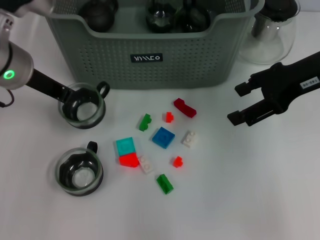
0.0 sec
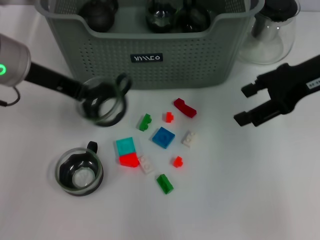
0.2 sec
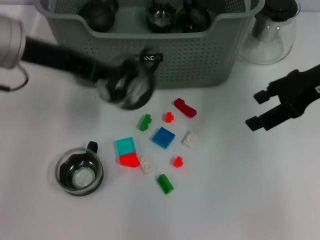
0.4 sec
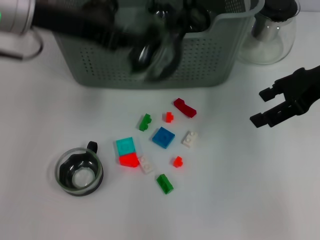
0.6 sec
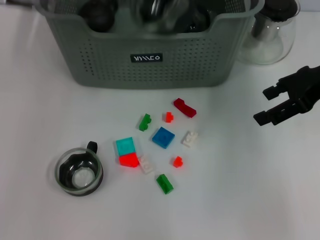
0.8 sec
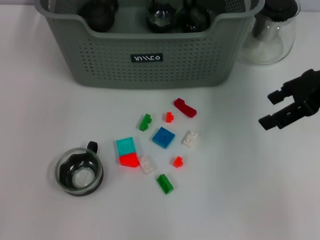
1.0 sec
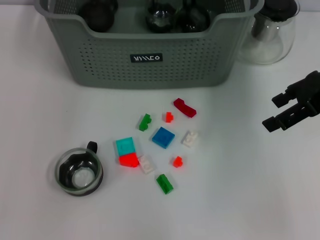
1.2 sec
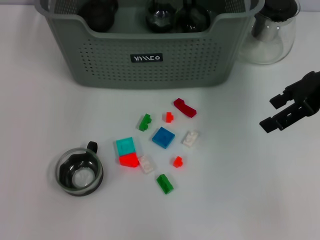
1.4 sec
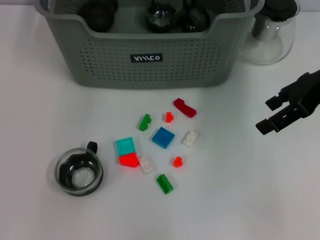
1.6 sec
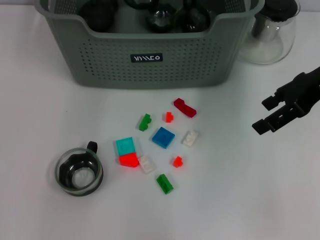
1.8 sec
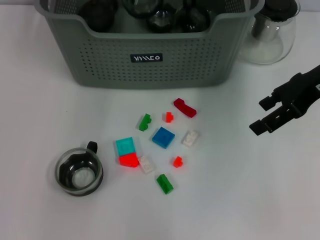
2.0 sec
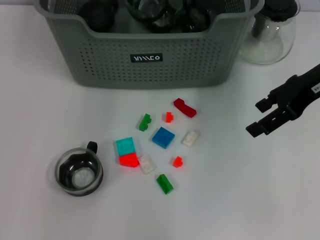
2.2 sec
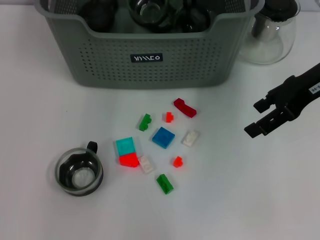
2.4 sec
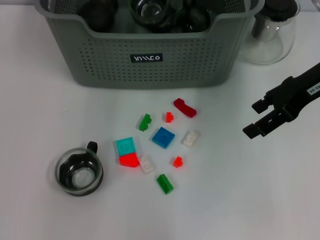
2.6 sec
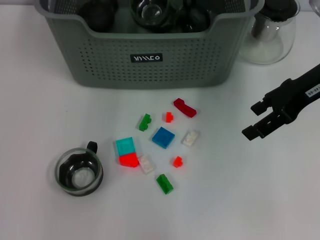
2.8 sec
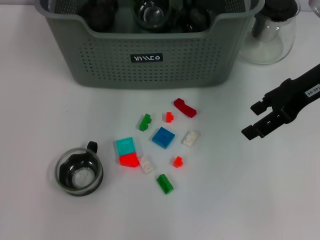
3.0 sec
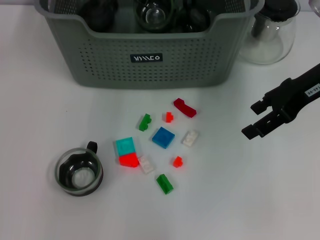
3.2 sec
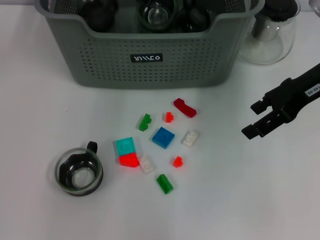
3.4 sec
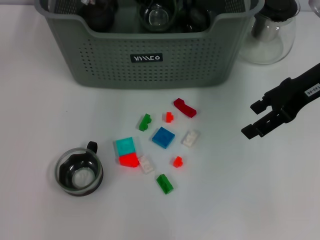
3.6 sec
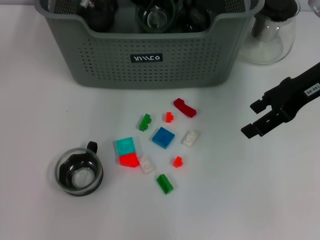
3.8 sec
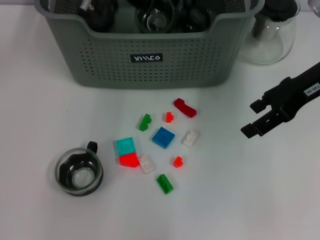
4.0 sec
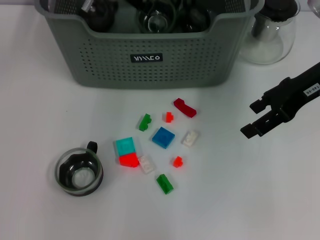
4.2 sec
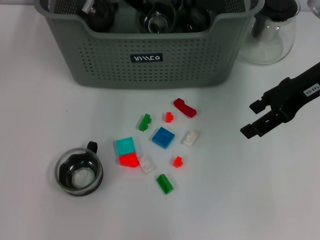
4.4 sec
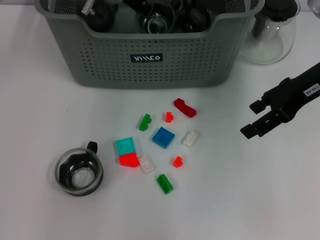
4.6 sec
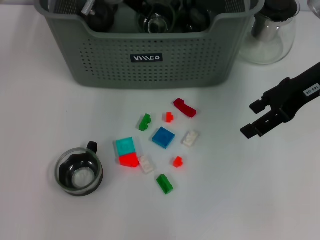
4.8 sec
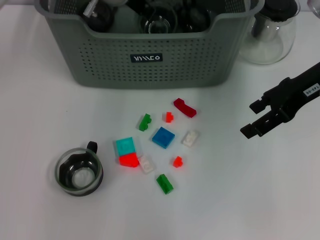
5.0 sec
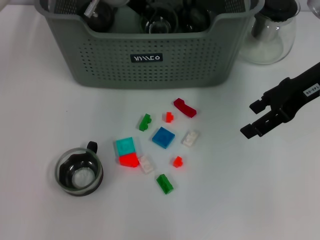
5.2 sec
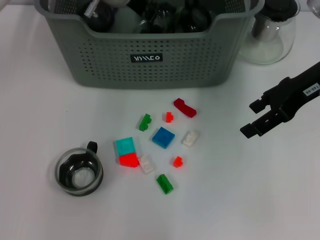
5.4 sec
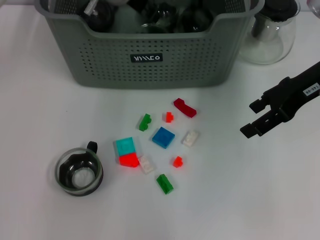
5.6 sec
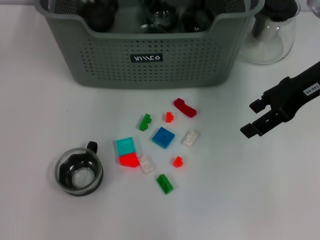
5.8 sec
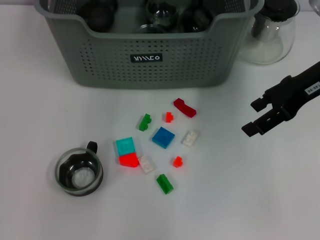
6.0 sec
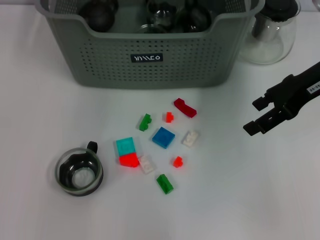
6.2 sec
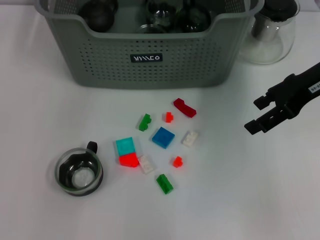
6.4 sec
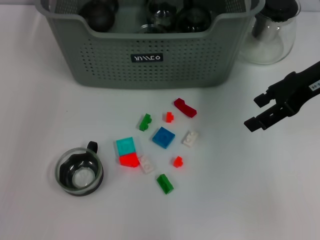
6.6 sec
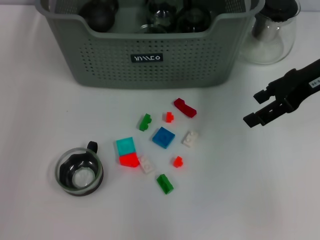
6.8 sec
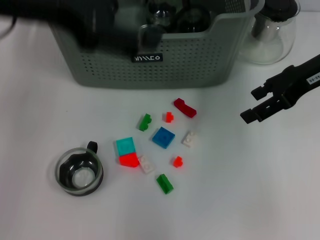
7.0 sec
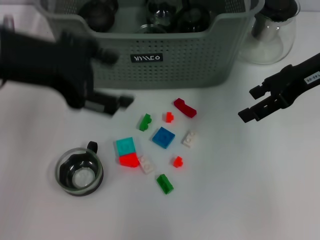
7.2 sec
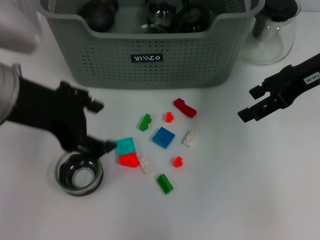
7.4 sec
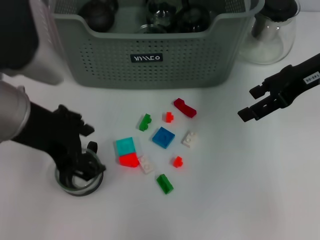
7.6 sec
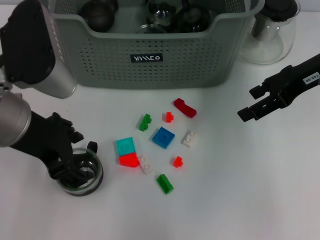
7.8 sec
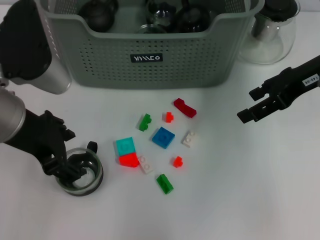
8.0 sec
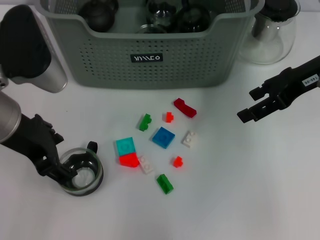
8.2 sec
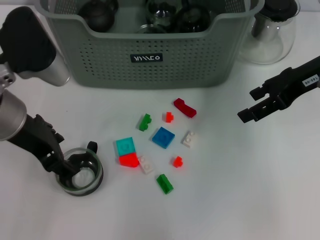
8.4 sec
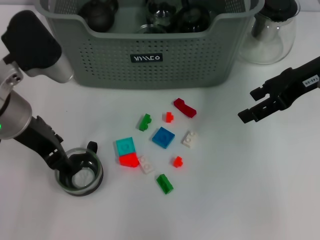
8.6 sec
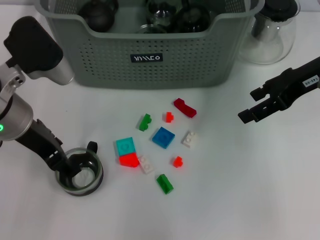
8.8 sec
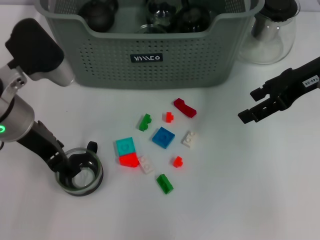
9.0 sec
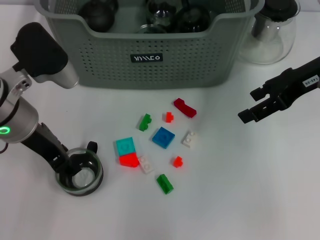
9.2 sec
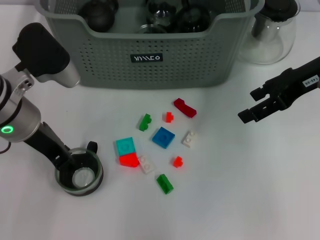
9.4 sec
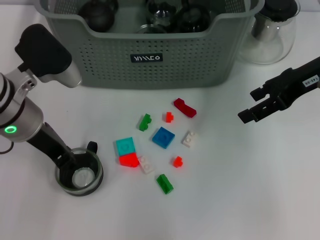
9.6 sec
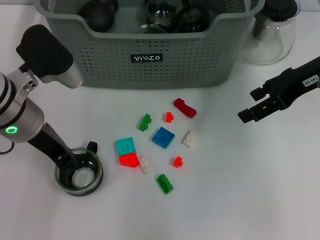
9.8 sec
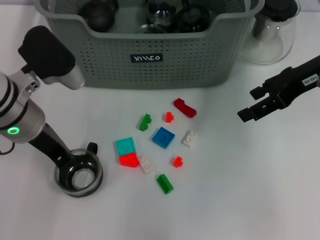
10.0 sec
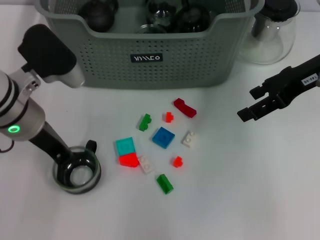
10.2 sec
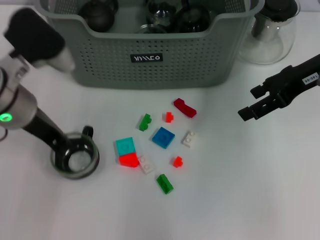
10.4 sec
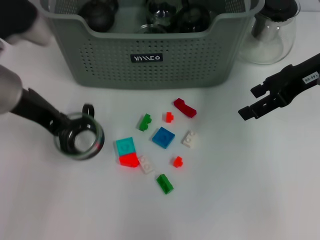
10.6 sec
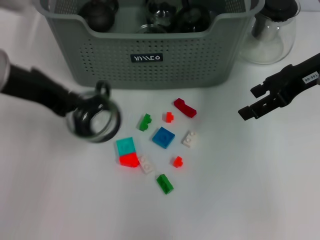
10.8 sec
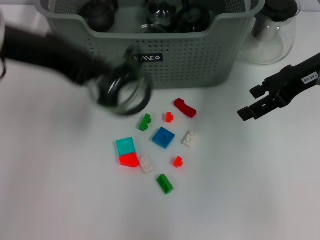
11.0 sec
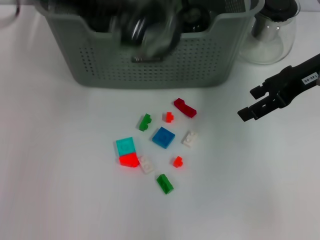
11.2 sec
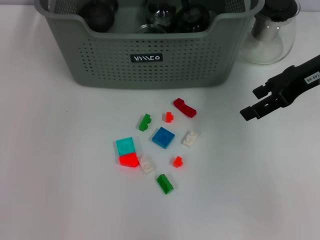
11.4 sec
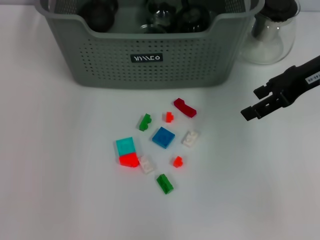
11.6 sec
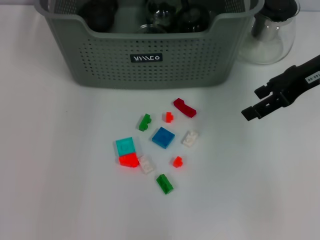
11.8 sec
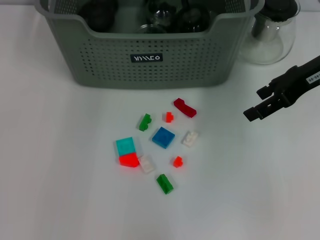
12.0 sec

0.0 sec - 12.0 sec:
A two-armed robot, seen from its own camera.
Task of the whole recording: pick up the teacup on the table and place it into the storage bin, pick up the block on the table and place it into the storage bin.
Step, 0.0 sec - 5.8 sec: Place the cup in the storage box with left gripper.
Step, 6.0 sec - 10.0 sec: Grasp the cup with left gripper.
0.0 sec - 1.6 sec: The left gripper travels forward and upward by about 20 cm.
1.6 sec - 3.0 sec: The left gripper goes roughly 10 cm downward and to the right.
3.0 sec - 4.4 sec: There are only small adjustments of the grippers.
4.4 sec - 6.0 sec: The left gripper travels upward by roughly 5 cm, and opens up.
6.0 sec - 7.6 sec: The left gripper goes approximately 20 cm backward.
7.6 sec - 9.0 sec: The left gripper is displaced downward by about 5 cm.
9.0 sec - 10.4 sec: The left gripper closes its fingers.
10.4 sec - 12.0 sec: The left gripper goes approximately 20 cm forward and upward.

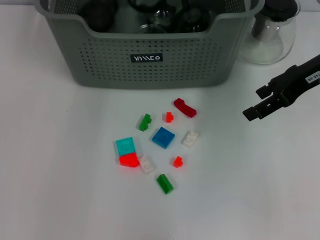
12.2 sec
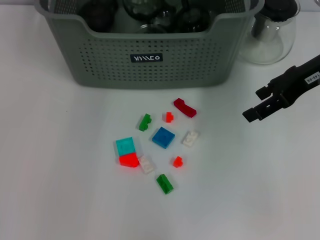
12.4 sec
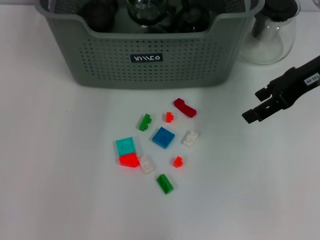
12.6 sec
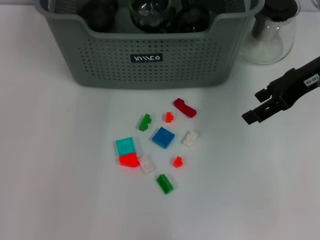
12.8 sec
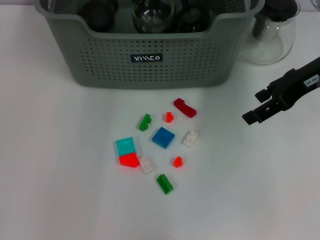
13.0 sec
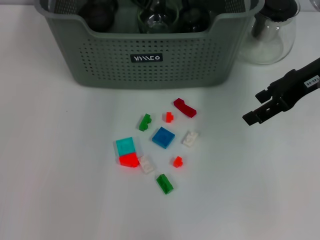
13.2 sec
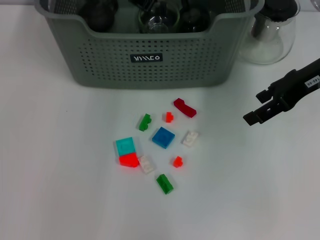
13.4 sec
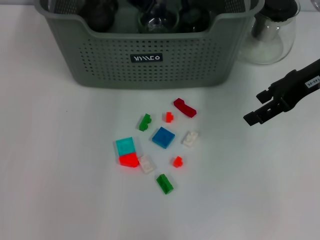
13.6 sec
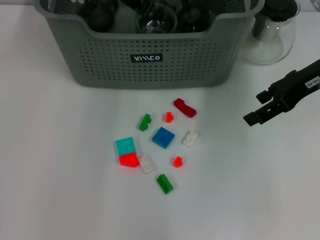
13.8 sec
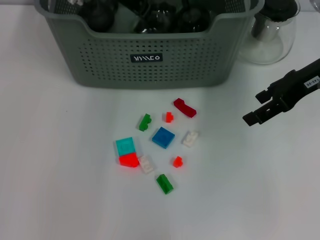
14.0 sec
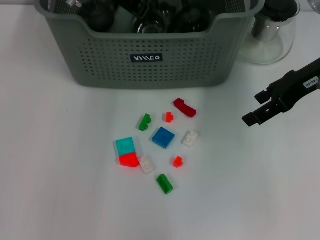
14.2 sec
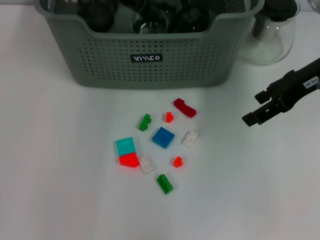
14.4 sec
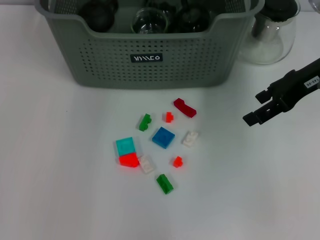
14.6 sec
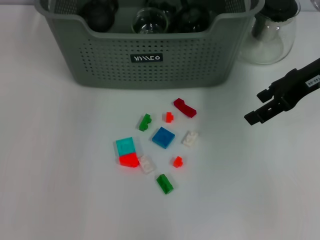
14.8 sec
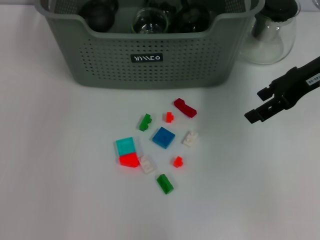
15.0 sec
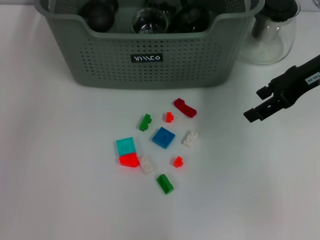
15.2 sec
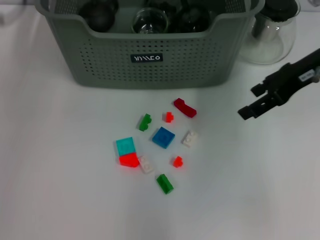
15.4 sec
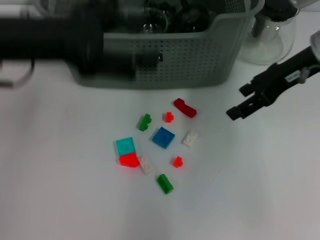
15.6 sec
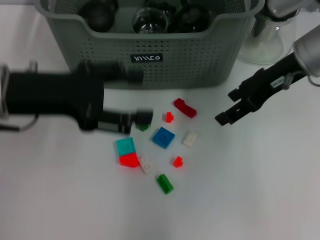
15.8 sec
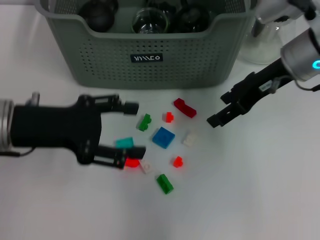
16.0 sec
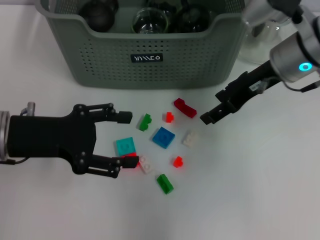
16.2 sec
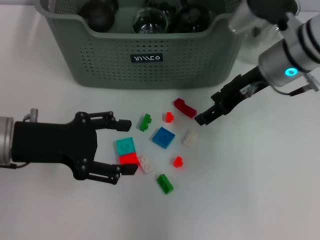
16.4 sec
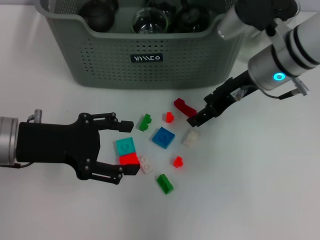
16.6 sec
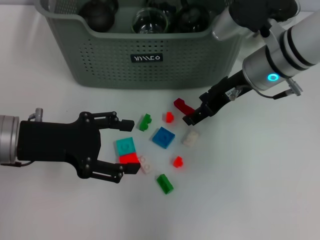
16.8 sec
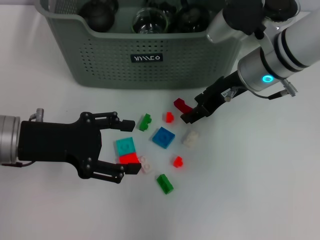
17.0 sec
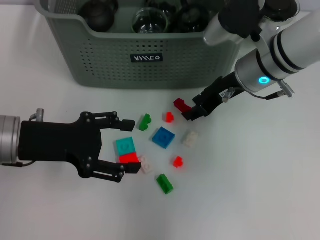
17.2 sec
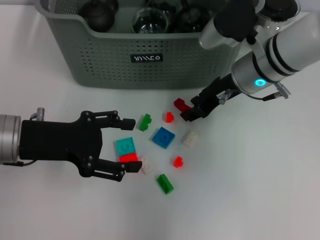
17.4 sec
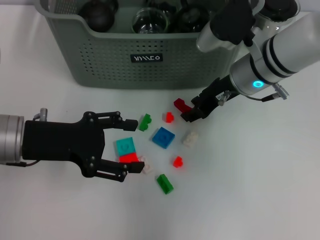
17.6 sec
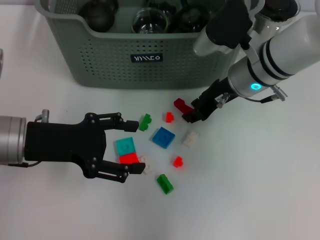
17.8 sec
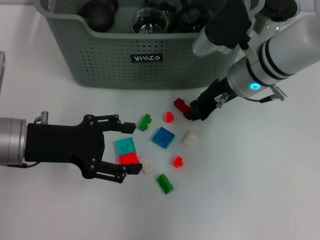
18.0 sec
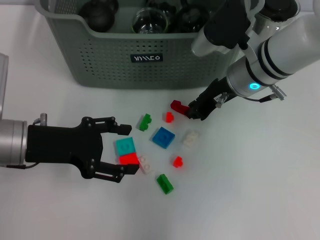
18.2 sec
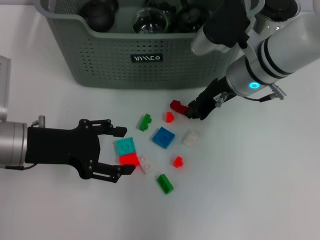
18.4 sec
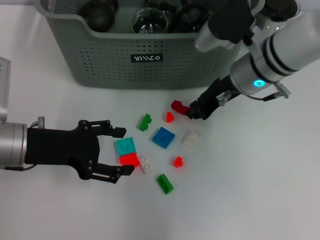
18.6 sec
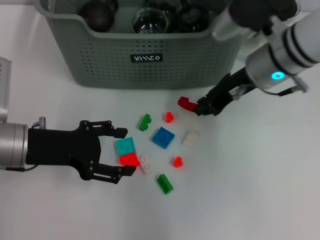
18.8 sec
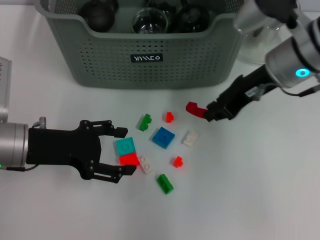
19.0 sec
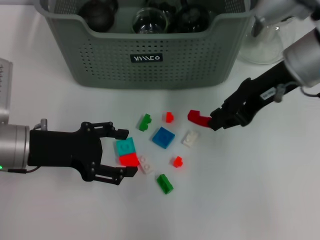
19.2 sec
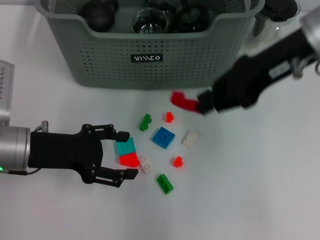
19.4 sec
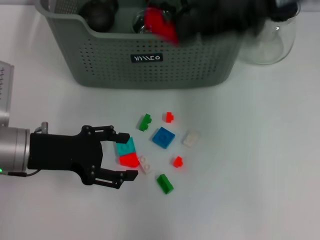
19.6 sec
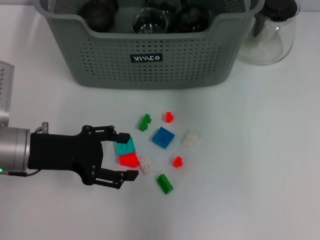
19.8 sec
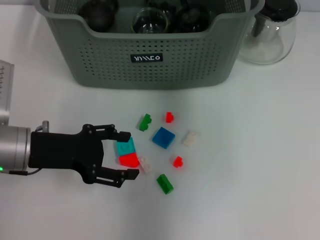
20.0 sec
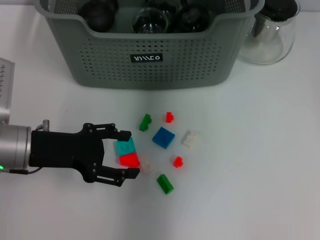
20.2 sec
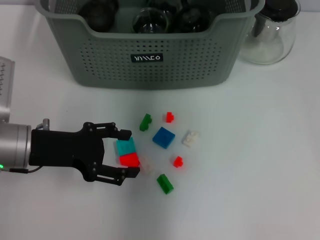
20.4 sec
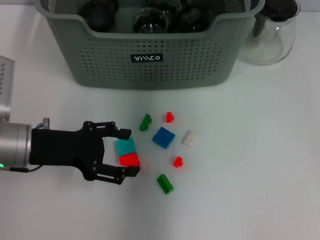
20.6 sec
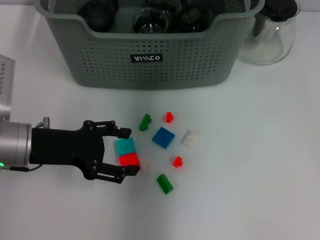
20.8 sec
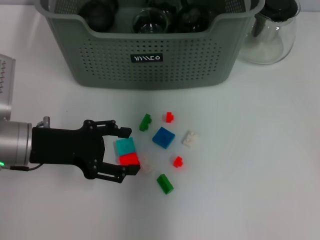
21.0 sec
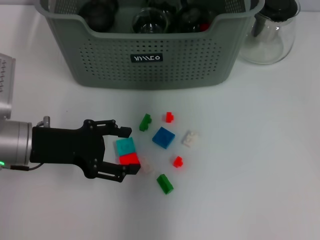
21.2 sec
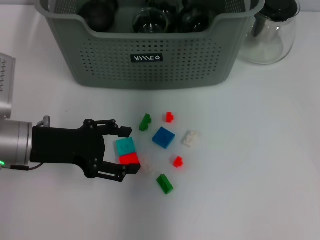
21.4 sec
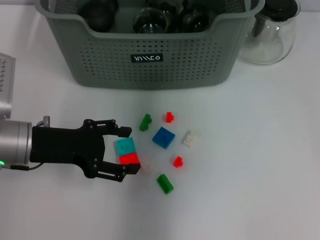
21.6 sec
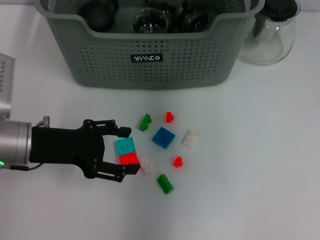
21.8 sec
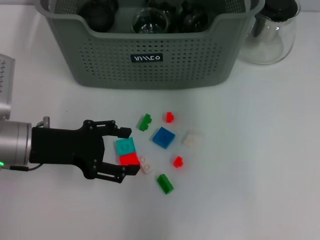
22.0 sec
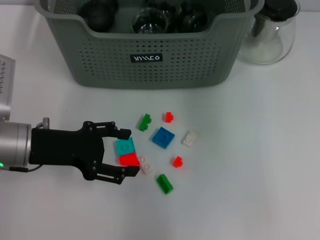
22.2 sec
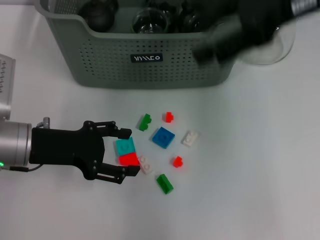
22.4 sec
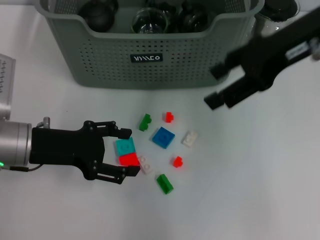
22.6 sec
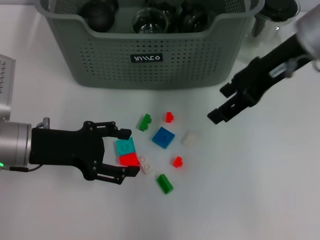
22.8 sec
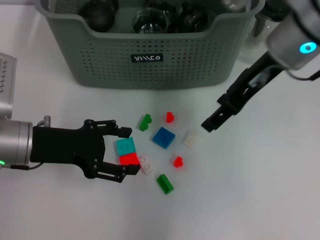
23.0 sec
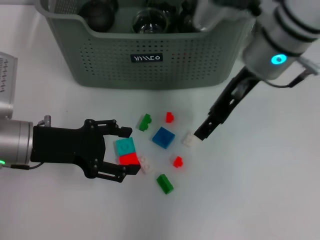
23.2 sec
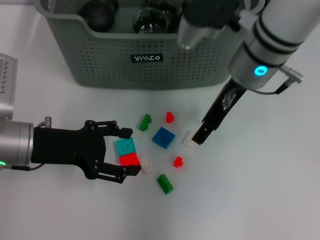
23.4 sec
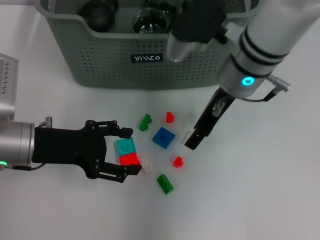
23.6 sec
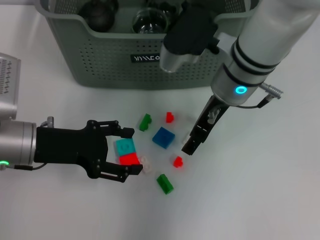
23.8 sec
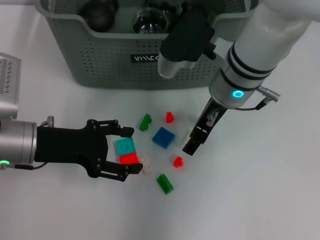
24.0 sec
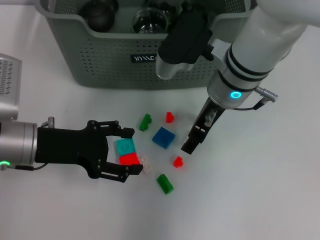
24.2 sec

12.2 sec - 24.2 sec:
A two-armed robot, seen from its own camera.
Task of the whole recording: pick up the teacup on the table and place it into the storage bin, pick up the block on the table and place it into the storage bin.
Step, 14.2 sec - 18.2 sec: Grasp the red block with right gripper.
Step, 18.4 sec - 21.2 sec: Place the red block in the storage box with right gripper.
13.8 sec - 15.2 sec: The left gripper goes approximately 20 cm to the left, backward and upward, and opens its fingers.
15.2 sec - 16.6 sec: The right gripper heads to the left and downward, covering approximately 10 cm, while the left gripper goes some 20 cm downward and backward.
16.6 sec - 18.2 sec: The right gripper closes its fingers.
18.2 sec - 19.8 sec: The right gripper moves upward, about 20 cm.
19.8 sec - 21.2 sec: The right gripper travels downward, forward and to the left by some 15 cm.
21.2 sec - 22.6 sec: The right gripper is displaced backward and to the right by some 15 cm, and opens.
22.6 sec - 24.2 sec: The right gripper goes approximately 15 cm to the left and downward.
